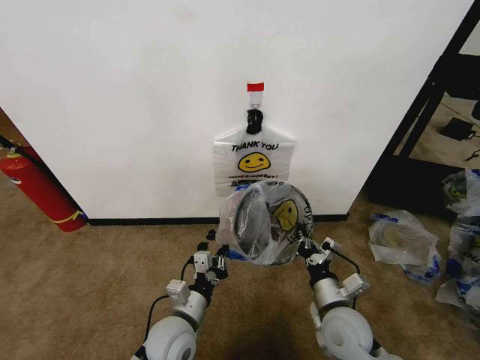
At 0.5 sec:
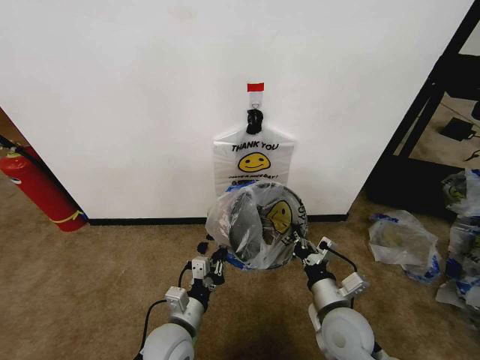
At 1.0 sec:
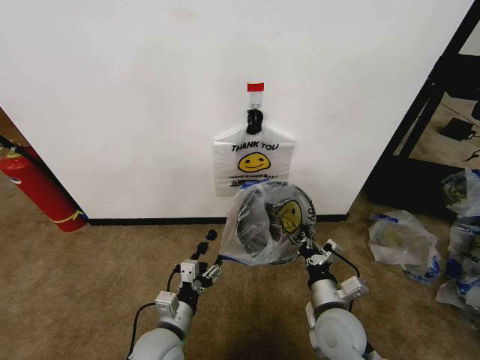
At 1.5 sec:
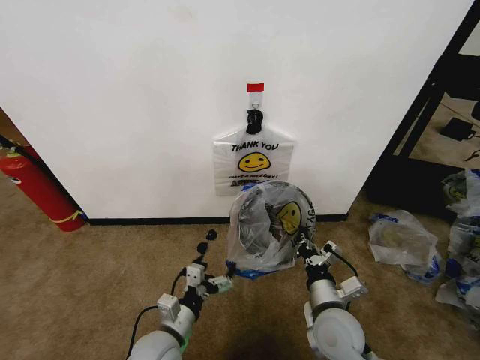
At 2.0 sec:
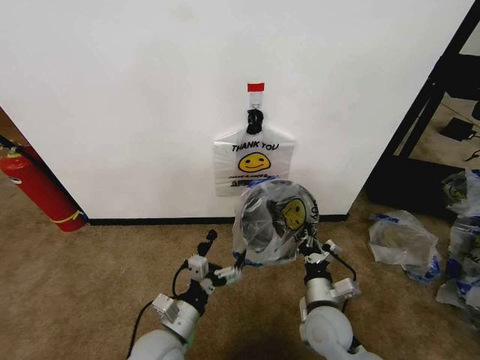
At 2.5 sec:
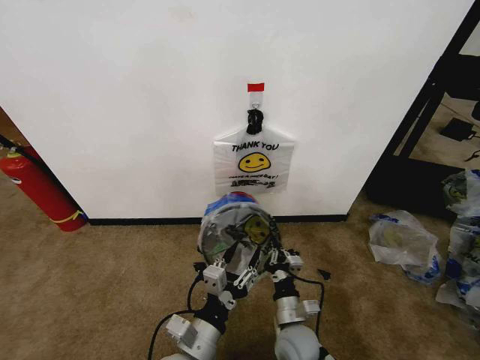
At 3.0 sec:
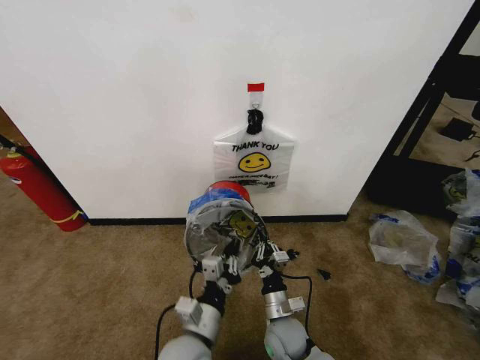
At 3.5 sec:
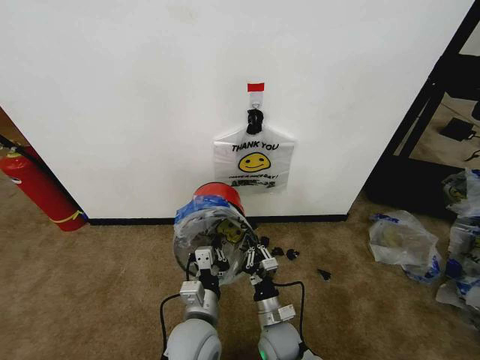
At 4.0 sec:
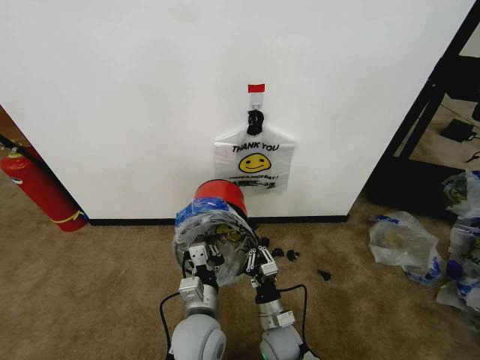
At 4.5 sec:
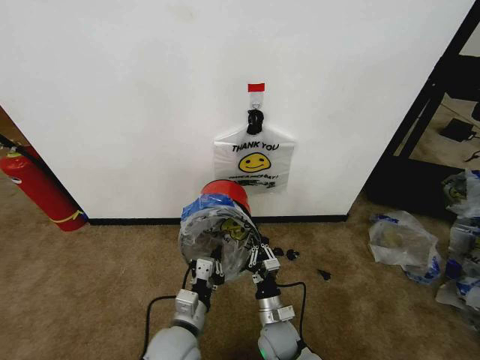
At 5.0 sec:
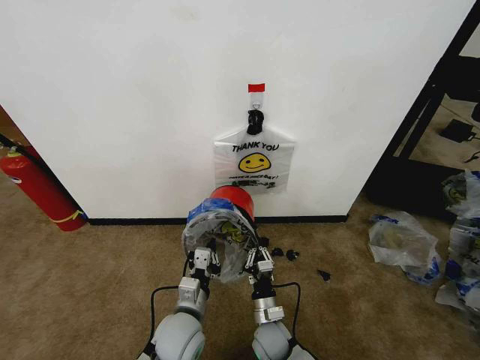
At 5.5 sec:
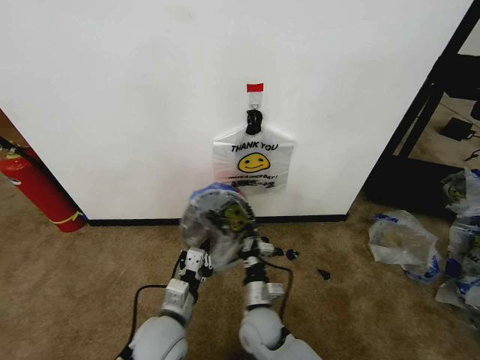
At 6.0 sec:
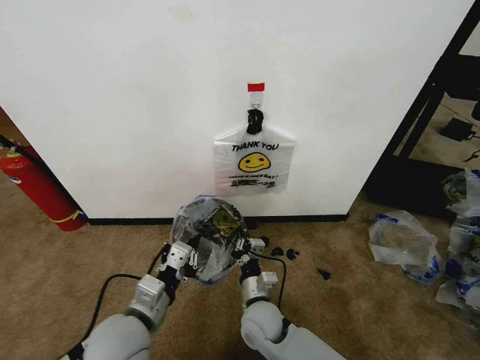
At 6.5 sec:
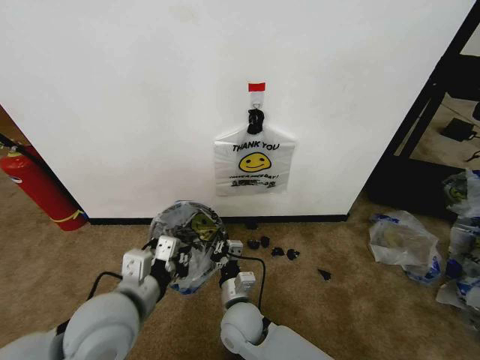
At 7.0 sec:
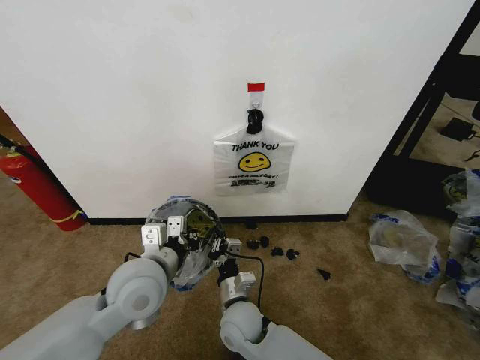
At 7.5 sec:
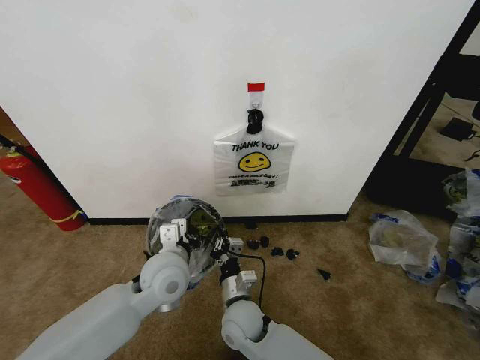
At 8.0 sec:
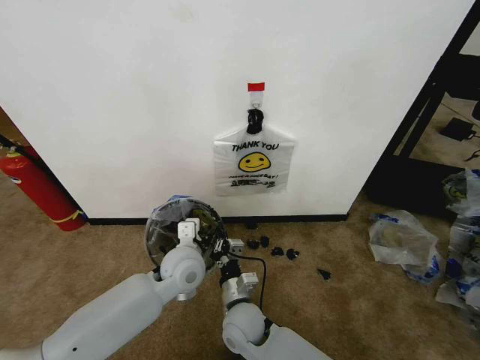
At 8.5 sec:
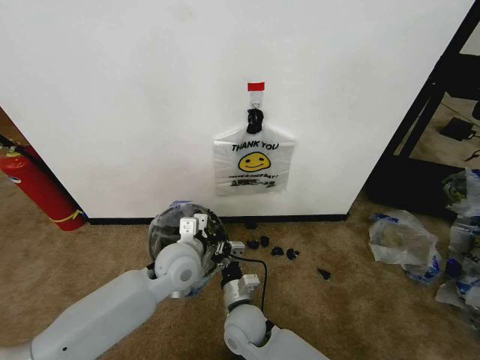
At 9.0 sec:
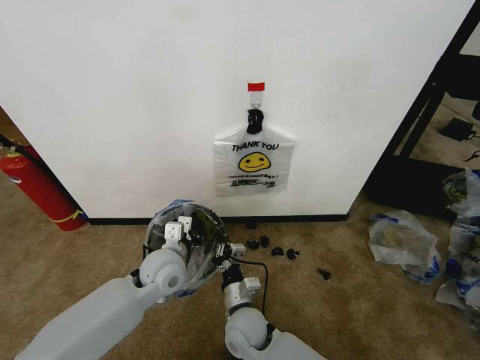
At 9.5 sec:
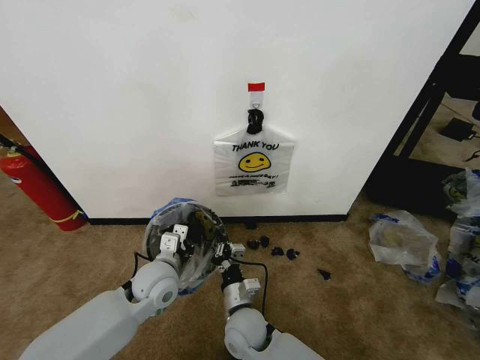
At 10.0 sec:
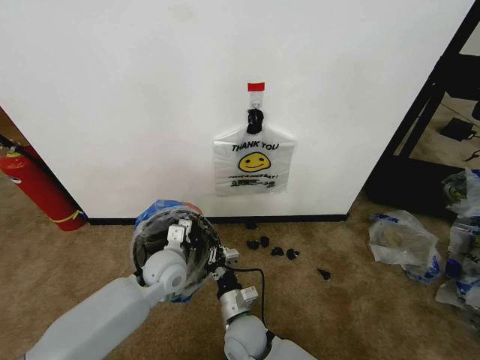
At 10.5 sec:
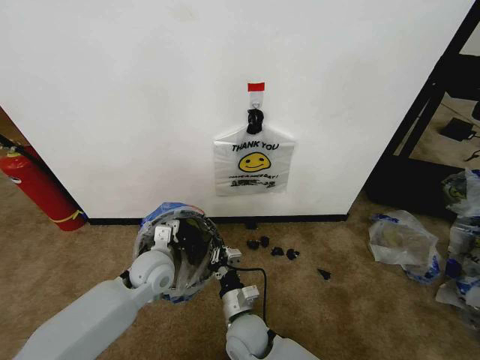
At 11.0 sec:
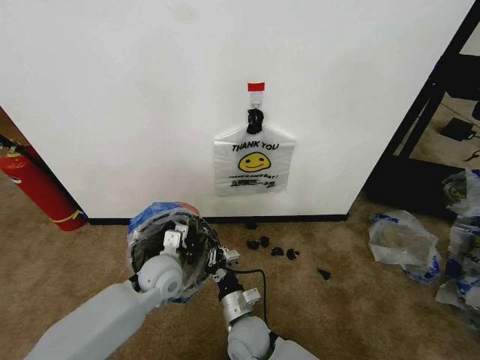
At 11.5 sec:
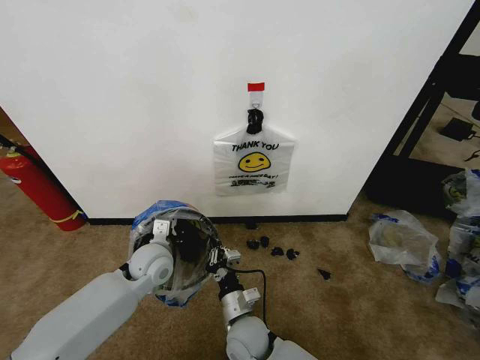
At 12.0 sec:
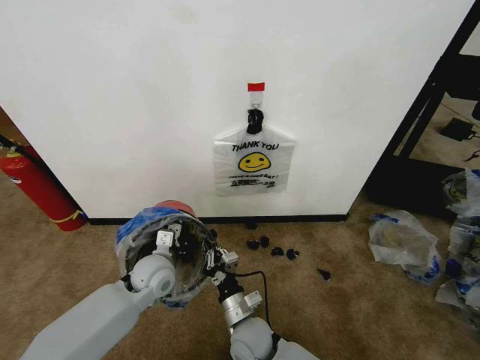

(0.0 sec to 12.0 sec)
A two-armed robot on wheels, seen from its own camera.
Task of the whole recording: Pick up the garbage bag from the wall and place it over the trash bin.
0.0 sec - 2.0 sec: The left gripper opens.
2.0 sec - 4.0 sec: The right gripper goes roughly 15 cm downward and to the left. The left gripper goes some 10 cm to the right, and closes.
4.0 sec - 6.0 sec: The left gripper travels to the left and upward by about 15 cm, while the right gripper shifts some 5 cm upward.
6.0 sec - 8.0 sec: The left gripper goes about 15 cm forward and to the right.
8.0 sec - 10.0 sec: The left gripper moves approximately 5 cm.
10.0 sec - 12.0 sec: The grippers stay close to where they were, moving slightly.

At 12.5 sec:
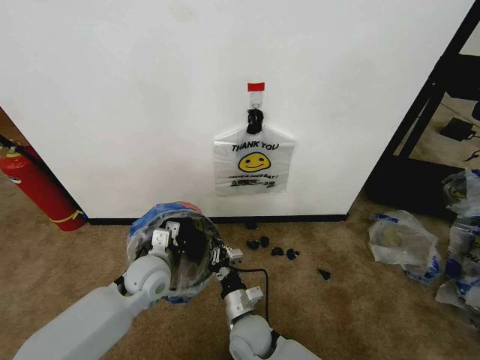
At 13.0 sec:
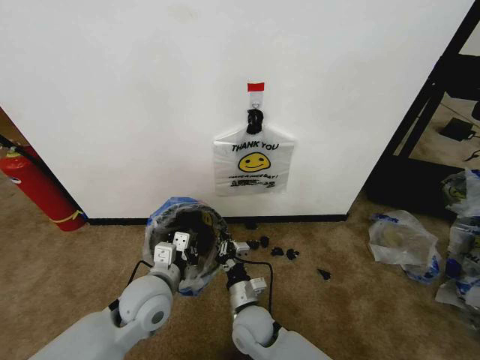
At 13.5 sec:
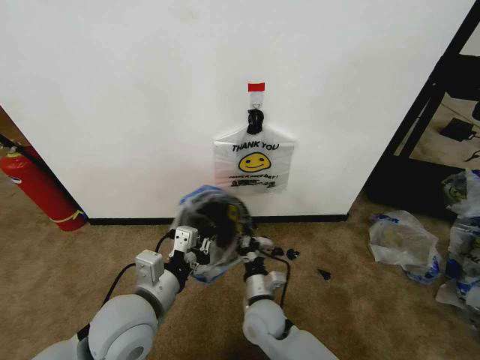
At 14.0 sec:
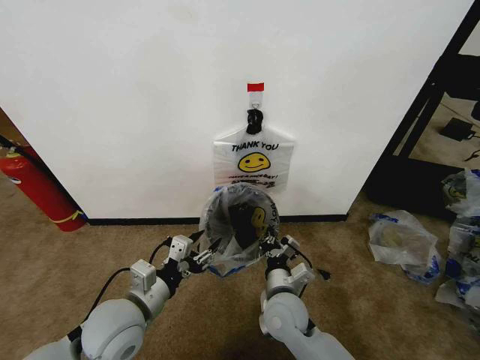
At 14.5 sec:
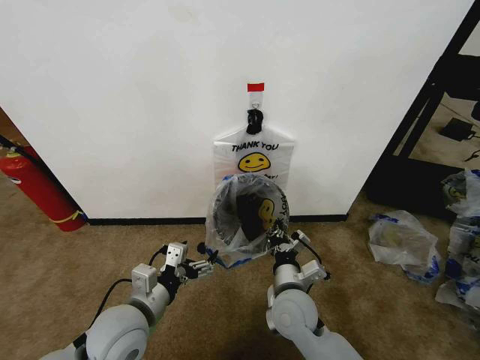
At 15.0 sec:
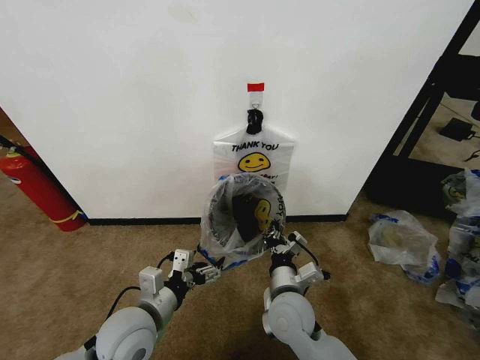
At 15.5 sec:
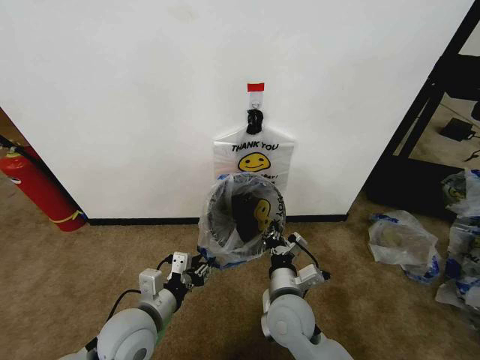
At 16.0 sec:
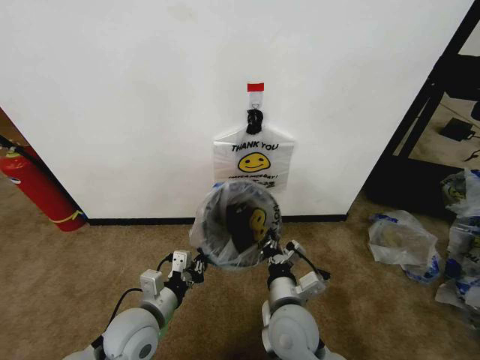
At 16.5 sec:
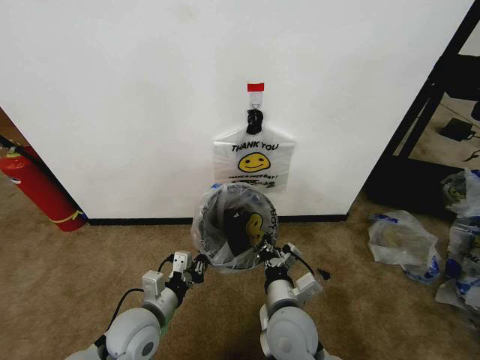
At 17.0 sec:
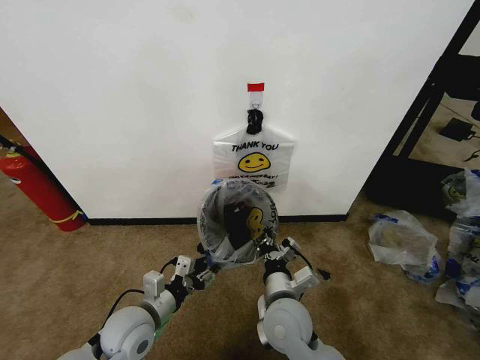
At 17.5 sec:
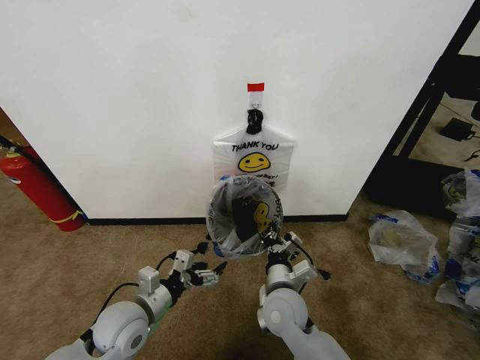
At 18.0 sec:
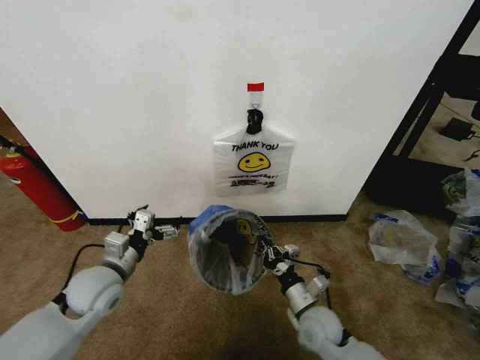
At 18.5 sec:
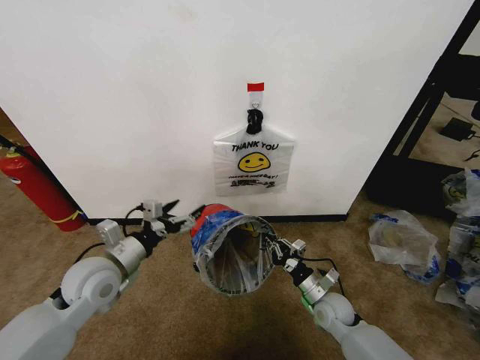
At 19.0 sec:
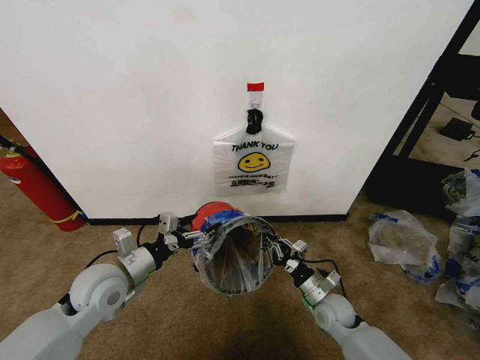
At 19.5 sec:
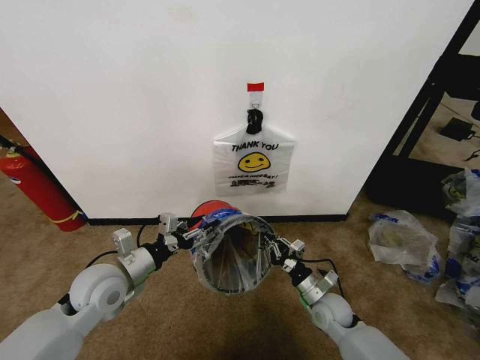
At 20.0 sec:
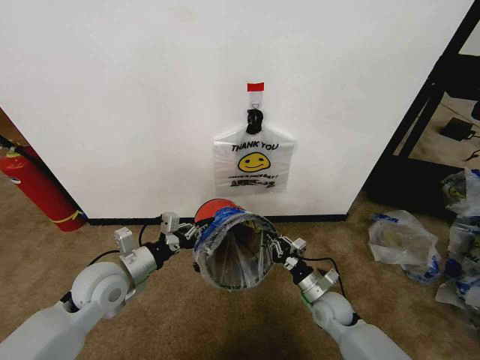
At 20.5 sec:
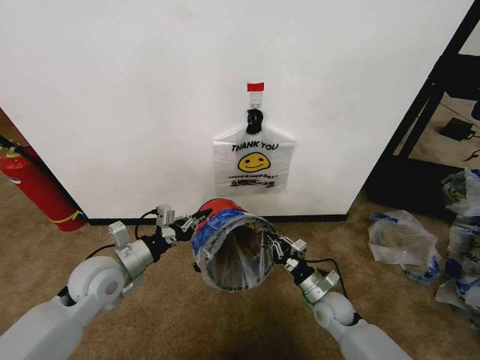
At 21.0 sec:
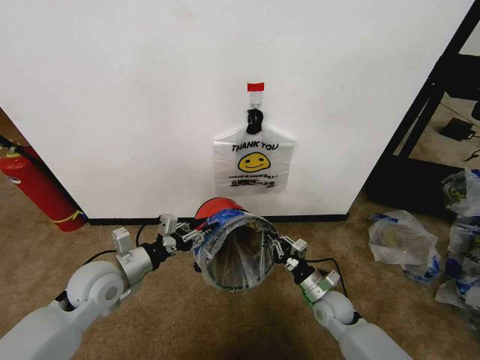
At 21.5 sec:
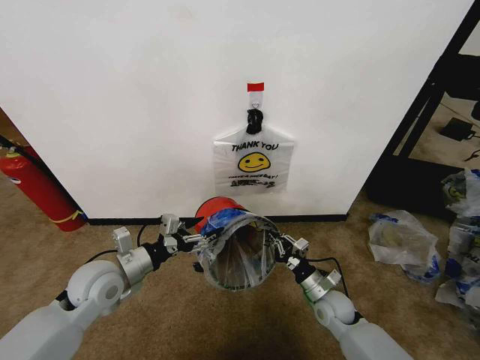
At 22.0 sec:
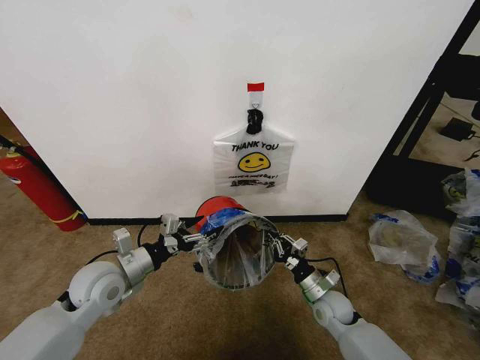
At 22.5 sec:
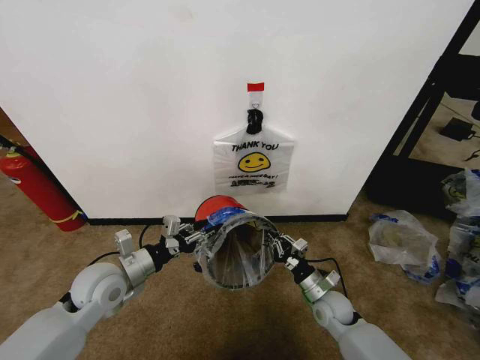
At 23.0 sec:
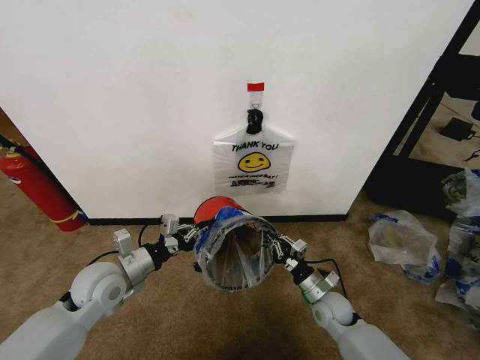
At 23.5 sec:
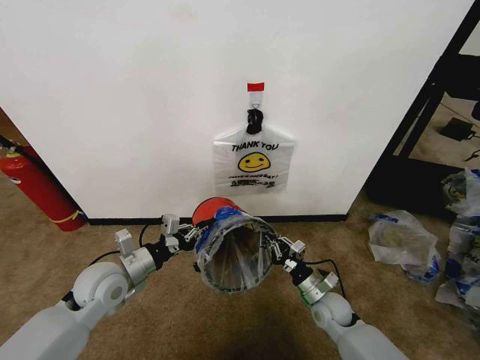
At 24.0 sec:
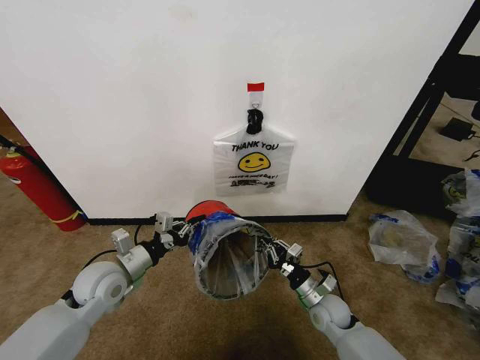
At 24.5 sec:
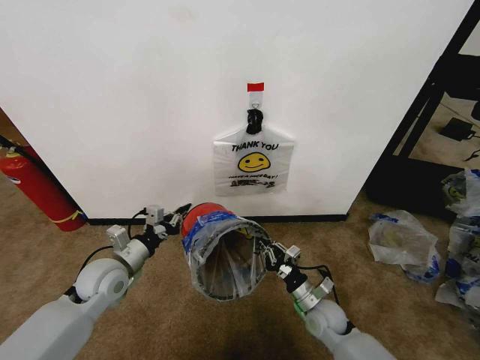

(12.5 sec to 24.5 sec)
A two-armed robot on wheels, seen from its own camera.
Task of the whole recording: Pick up the garbage bag from the wall and place it over the trash bin.
12.5 sec - 14.5 sec: The right gripper moves to the right and upward, about 15 cm; the left gripper heads backward, covering about 15 cm, and opens up.
14.5 sec - 16.5 sec: The right gripper ends up about 5 cm from where it was. The left gripper shifts approximately 5 cm downward, and closes up.
16.5 sec - 18.5 sec: The right gripper moves to the right, downward and forward, roughly 25 cm, while the left gripper goes about 15 cm upward, to the left and forward, and opens up.
18.5 sec - 20.5 sec: The left gripper closes up.
20.5 sec - 22.5 sec: The left gripper opens up.
22.5 sec - 24.5 sec: The left gripper closes.

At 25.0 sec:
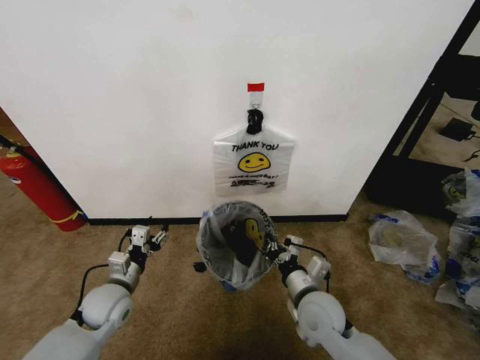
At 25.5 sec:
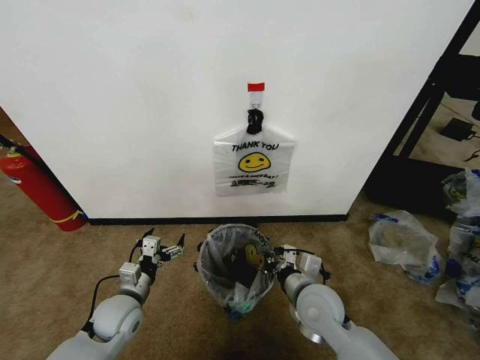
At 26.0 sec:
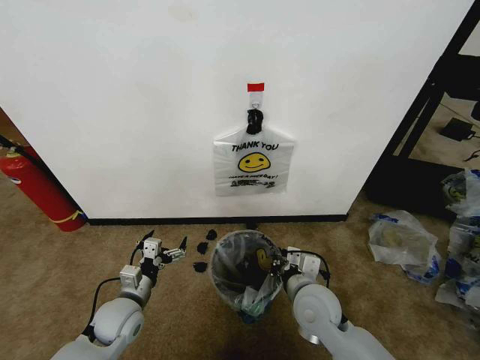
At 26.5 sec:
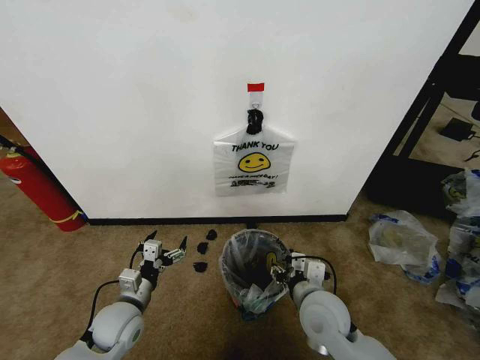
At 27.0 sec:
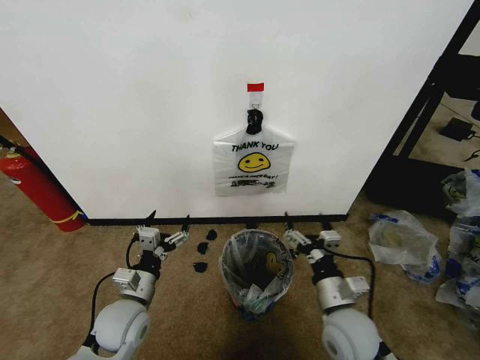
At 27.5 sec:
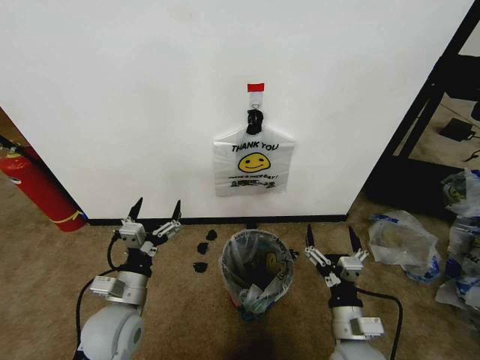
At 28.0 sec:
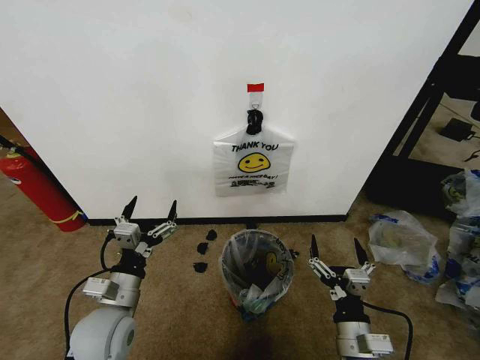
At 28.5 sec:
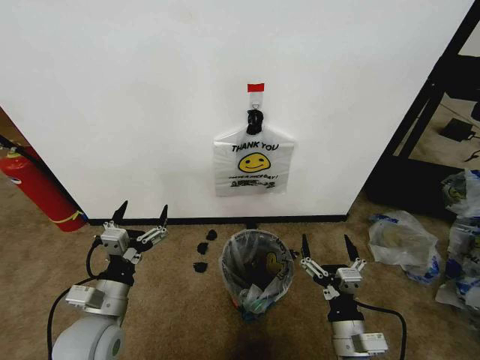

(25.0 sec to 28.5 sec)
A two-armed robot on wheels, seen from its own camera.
Task of the whole recording: Pick up the garbage bag from the wall and place it over the trash bin.
25.0 sec - 27.0 sec: The left gripper heads to the right, covering some 5 cm, and opens its fingers, while the right gripper moves roughly 5 cm, and opens its fingers.
27.0 sec - 28.5 sec: The left gripper is displaced upward by about 5 cm. The right gripper shifts approximately 10 cm backward.
